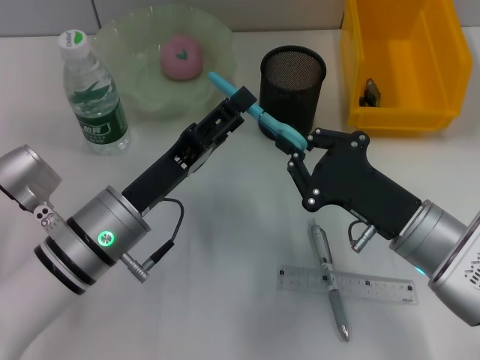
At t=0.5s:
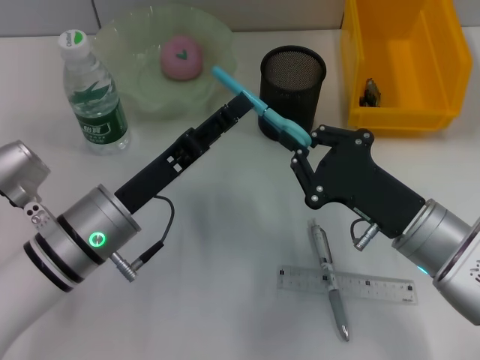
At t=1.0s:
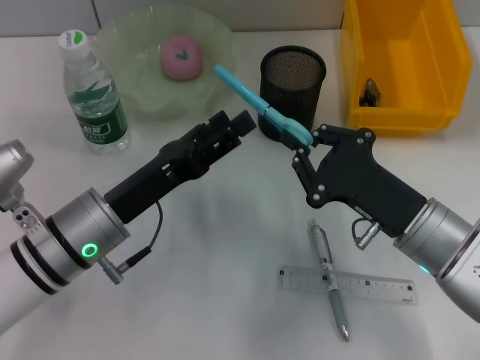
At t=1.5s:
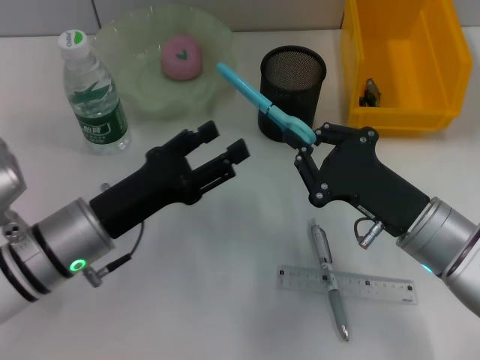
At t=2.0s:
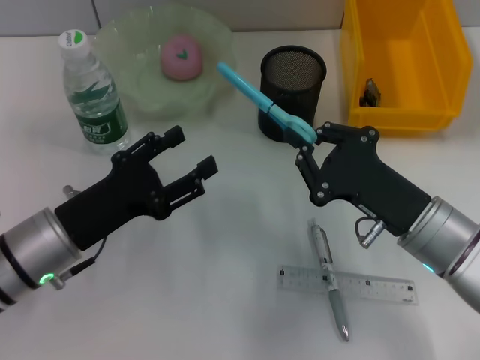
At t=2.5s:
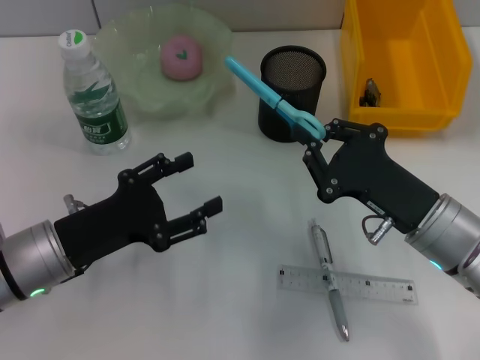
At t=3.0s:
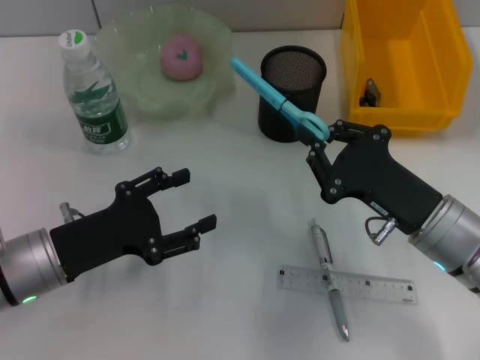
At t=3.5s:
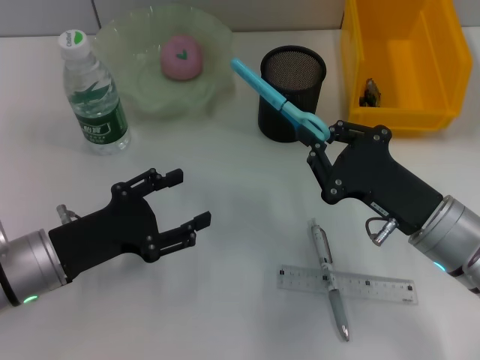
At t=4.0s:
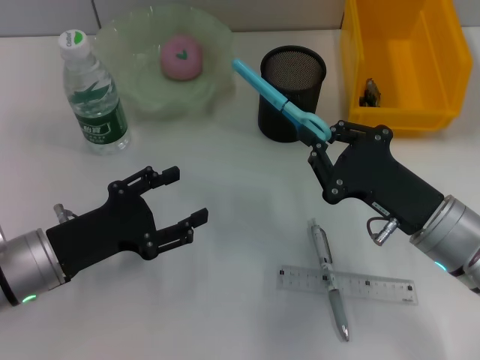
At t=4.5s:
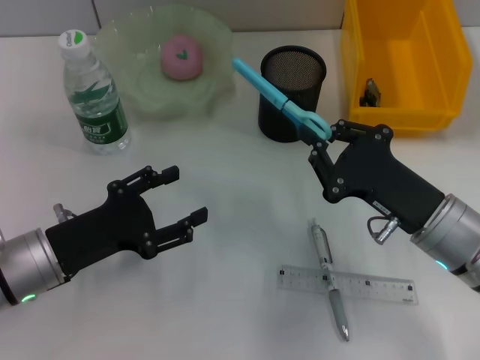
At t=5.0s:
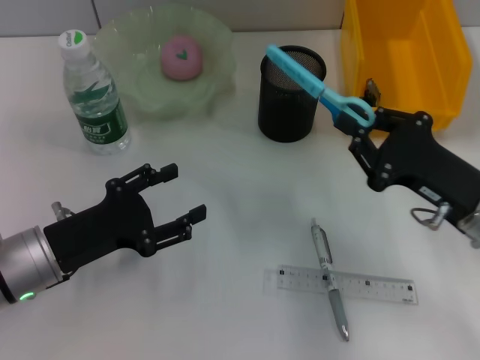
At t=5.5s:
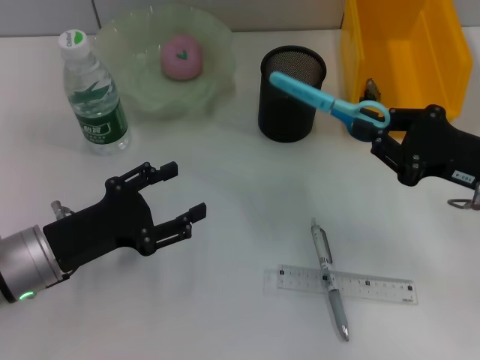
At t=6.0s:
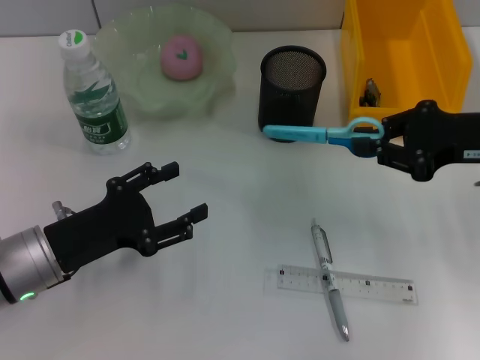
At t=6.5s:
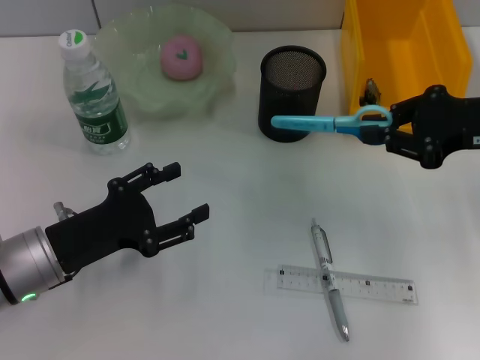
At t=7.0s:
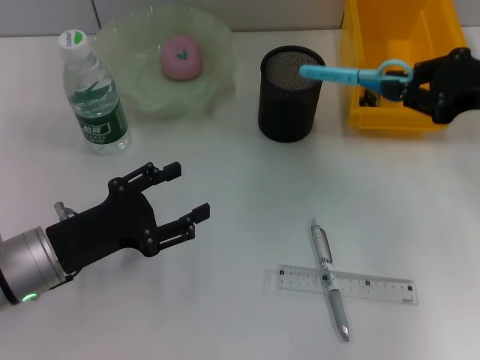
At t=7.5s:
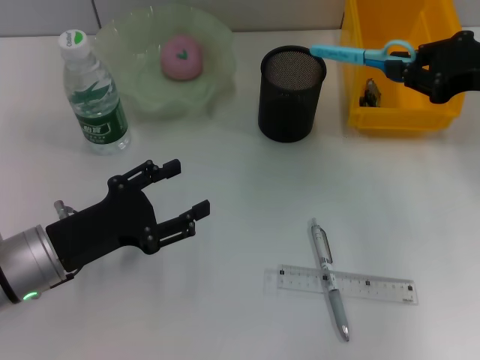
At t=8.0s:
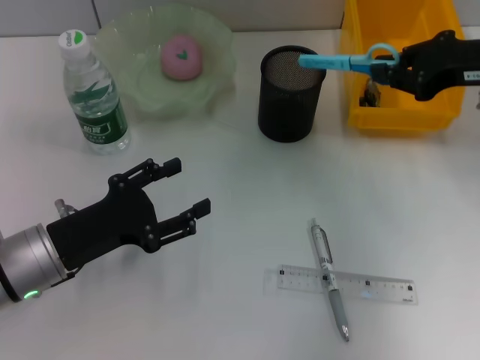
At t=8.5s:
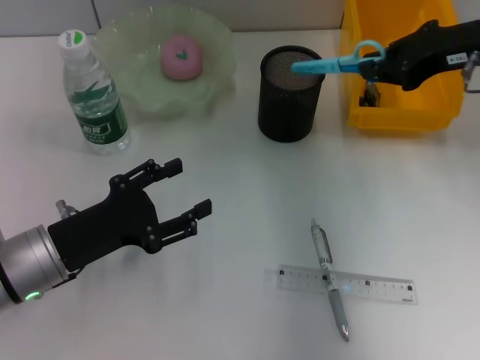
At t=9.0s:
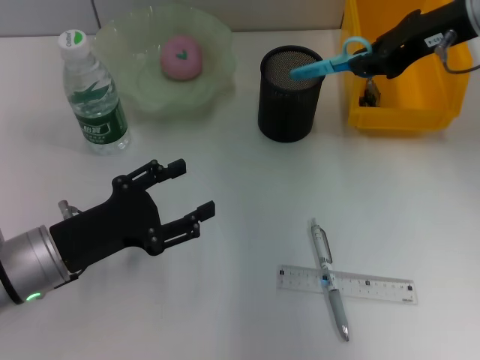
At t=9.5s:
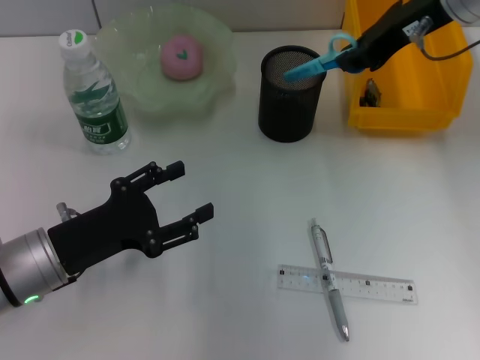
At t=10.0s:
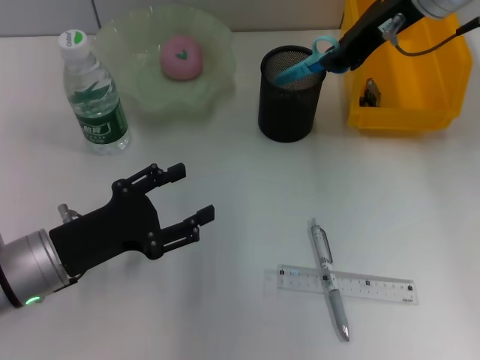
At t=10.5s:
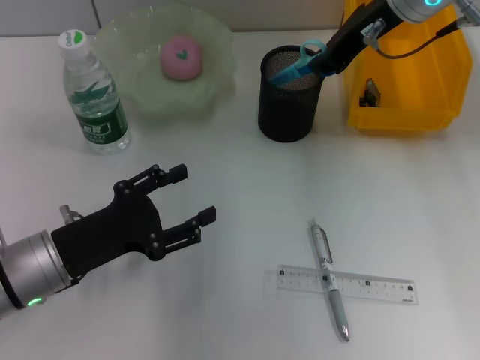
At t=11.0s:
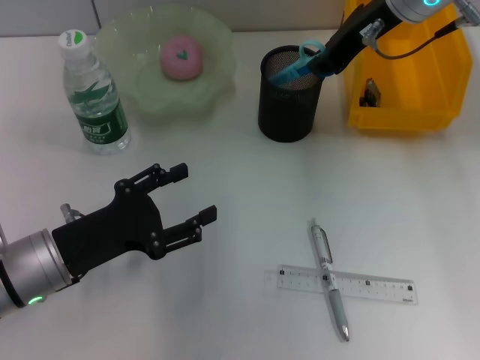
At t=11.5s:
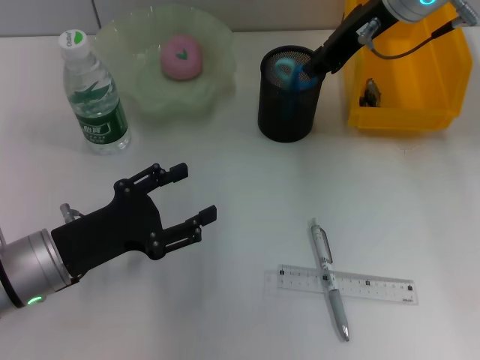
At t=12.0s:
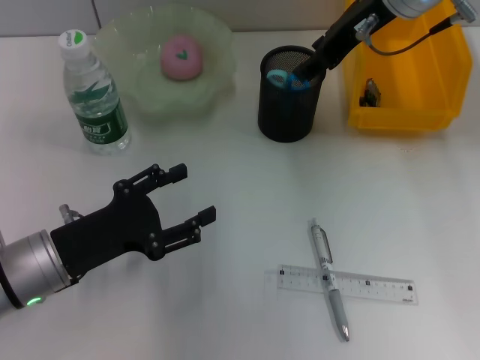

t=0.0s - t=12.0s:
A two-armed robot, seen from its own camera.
t=0.0s - t=2.0s: The left gripper shifts roughly 5 cm to the left.
t=2.0s - t=4.0s: The grippers move only a little.
t=4.0s - t=6.0s: The right gripper goes approximately 15 cm upward, to the right and forward.
t=6.0s - t=8.0s: The right gripper heads forward, covering about 5 cm.
t=8.0s - t=10.0s: The right gripper goes some 15 cm to the left, forward and upward.
t=10.0s - t=12.0s: The grippers move only a little.

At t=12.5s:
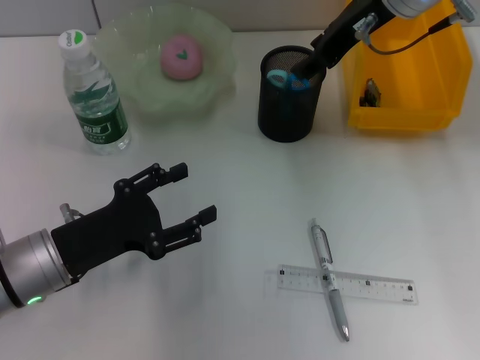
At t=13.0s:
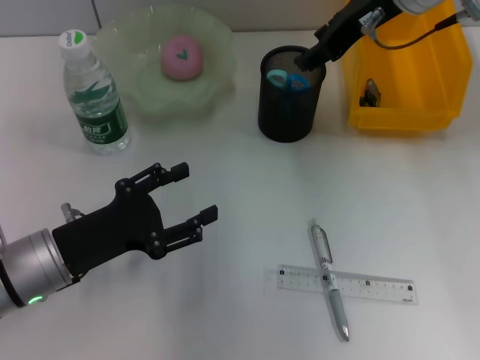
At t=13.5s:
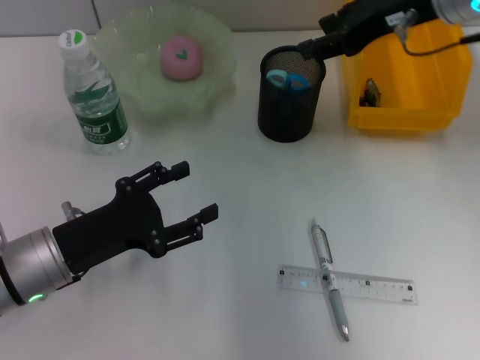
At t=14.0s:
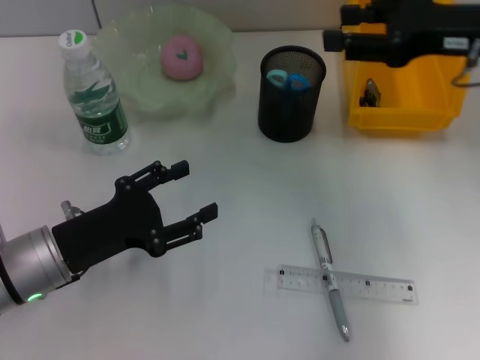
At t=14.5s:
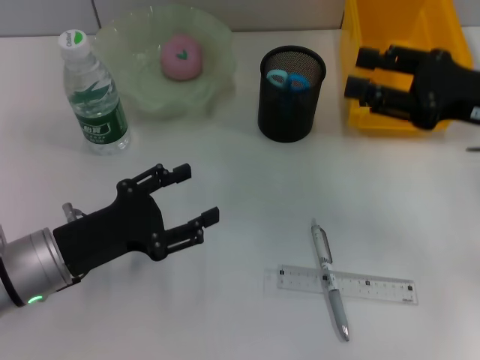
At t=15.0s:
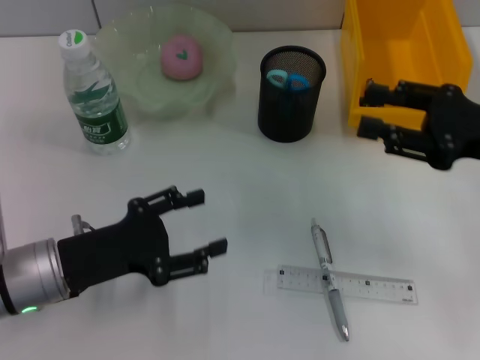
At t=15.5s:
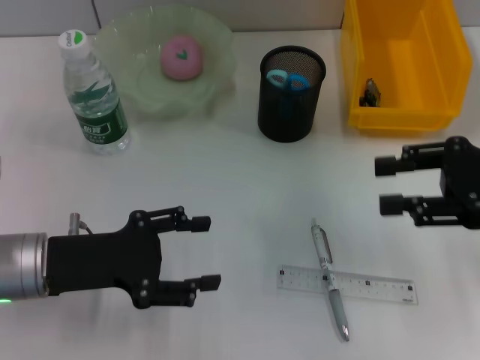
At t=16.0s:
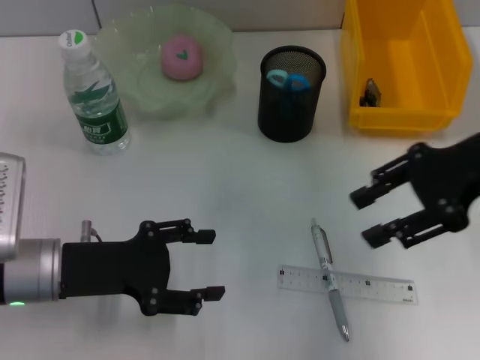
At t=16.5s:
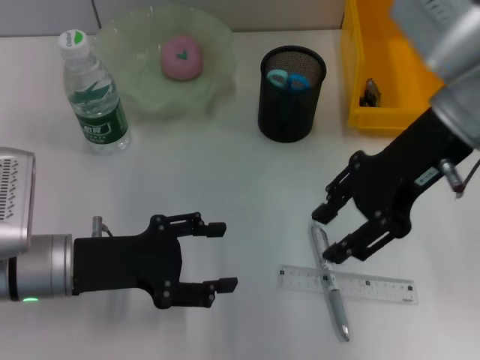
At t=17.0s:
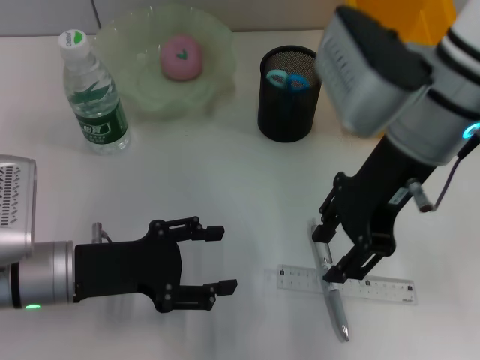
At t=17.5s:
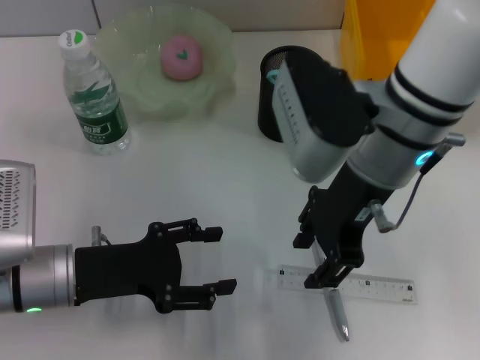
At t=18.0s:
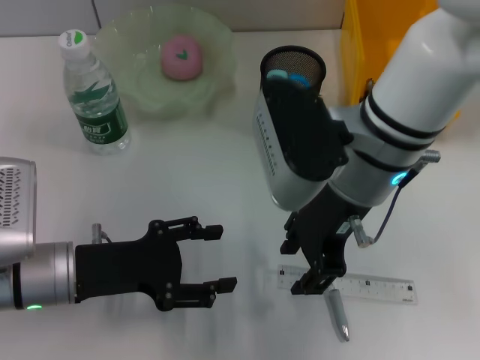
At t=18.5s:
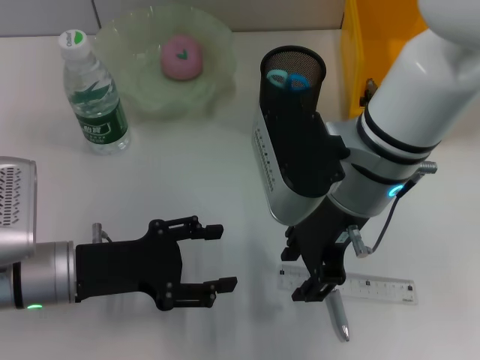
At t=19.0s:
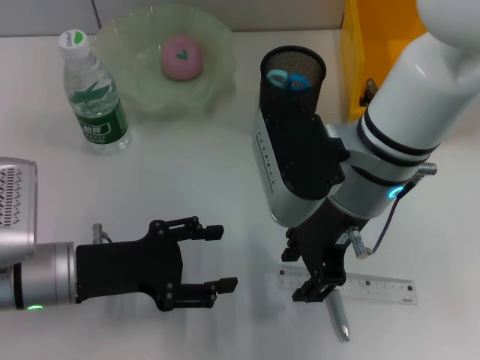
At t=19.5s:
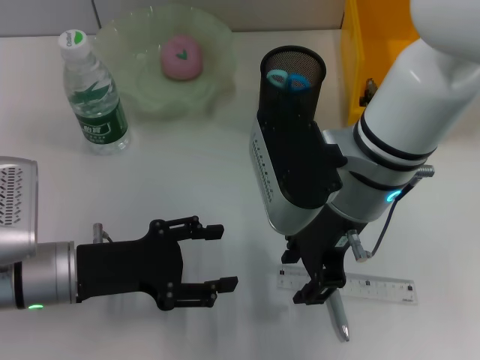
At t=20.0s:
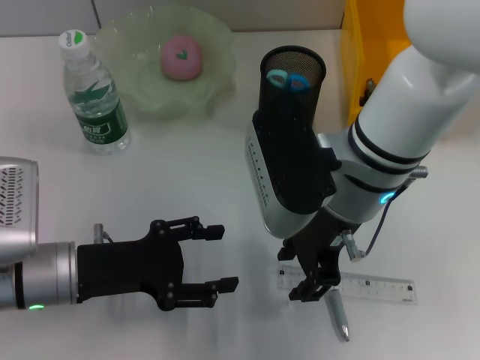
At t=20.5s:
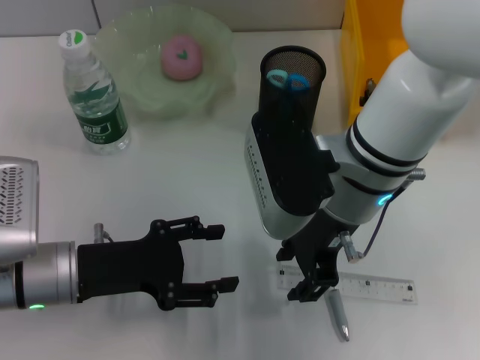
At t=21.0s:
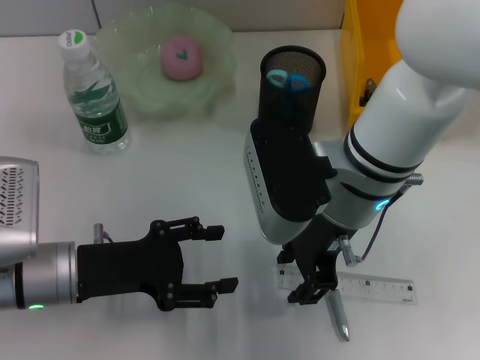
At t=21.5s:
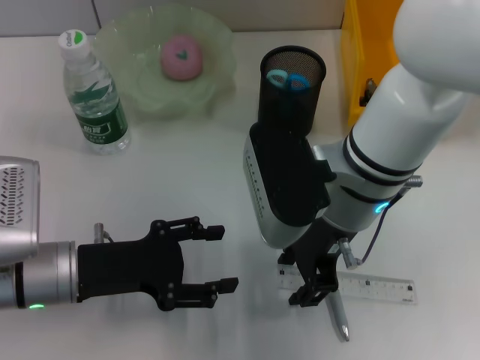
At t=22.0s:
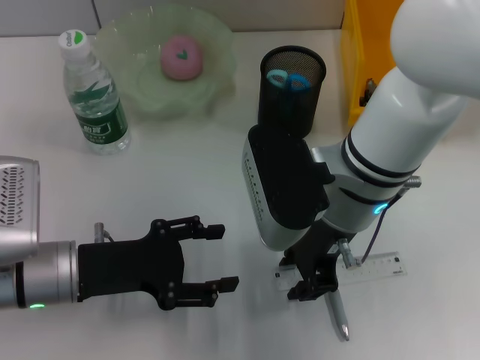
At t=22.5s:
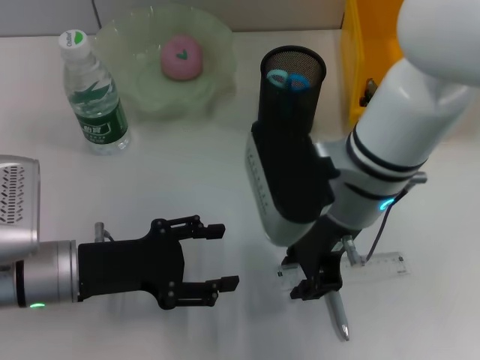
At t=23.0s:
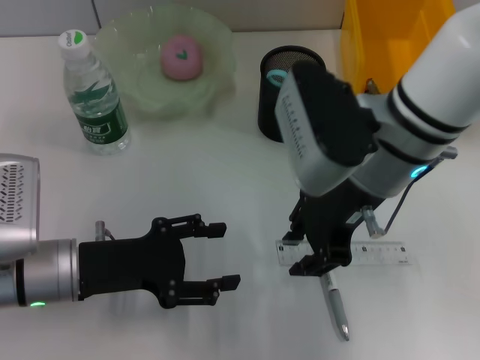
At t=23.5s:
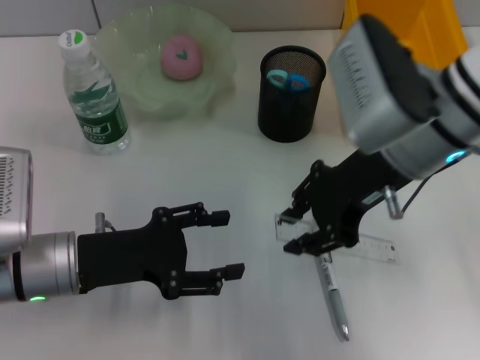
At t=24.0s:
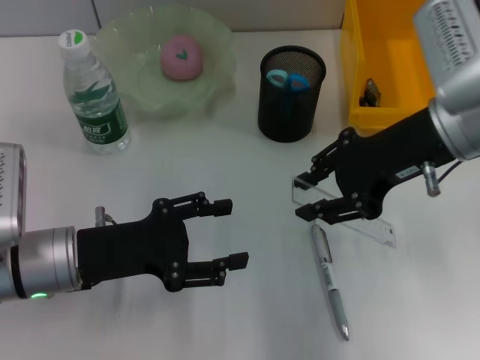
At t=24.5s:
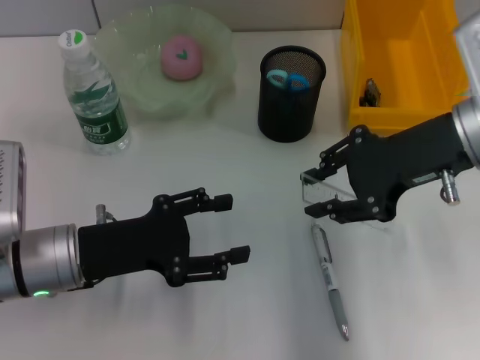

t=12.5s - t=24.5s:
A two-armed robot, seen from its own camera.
Step, t=12.5s - t=22.0s: Grab the ruler with the right hand.
t=12.5s - t=14.5s: The right gripper moves to the right, backward and downward, about 20 cm.
t=14.5s - t=16.5s: The right gripper travels to the left and upward by about 10 cm.
t=16.5s - t=18.5s: The right gripper moves to the left and downward, about 10 cm.
t=18.5s - t=20.5s: Neither gripper changes place.
t=20.5s - t=22.5s: Both grippers stay put.
t=22.5s - t=24.5s: The right gripper is displaced to the right by about 10 cm.

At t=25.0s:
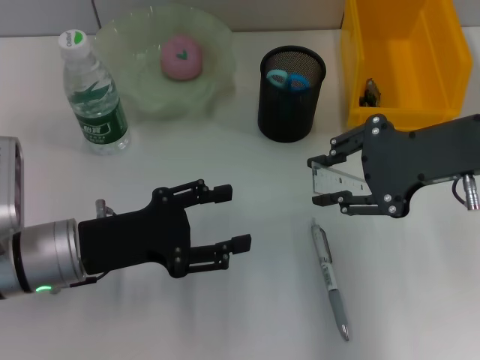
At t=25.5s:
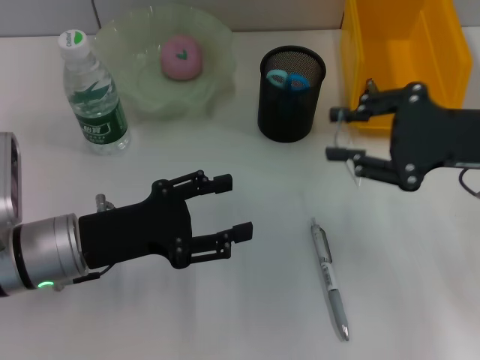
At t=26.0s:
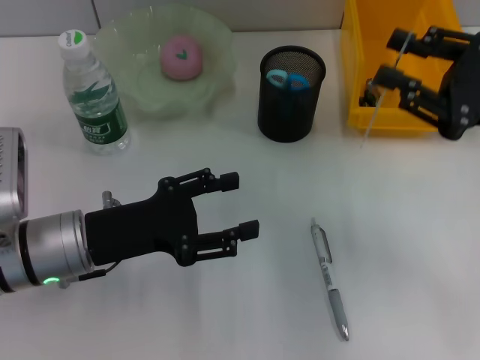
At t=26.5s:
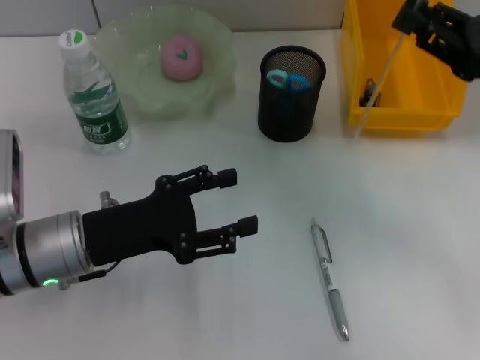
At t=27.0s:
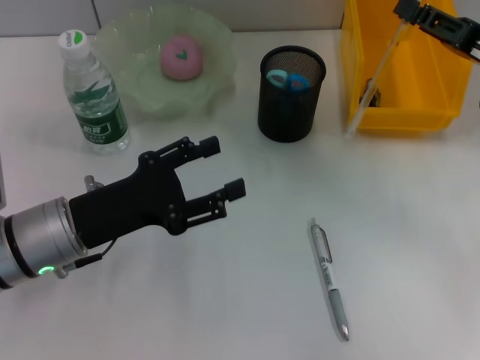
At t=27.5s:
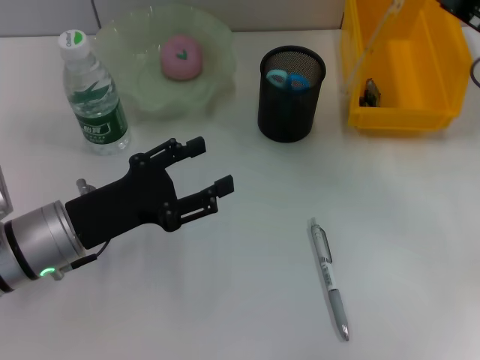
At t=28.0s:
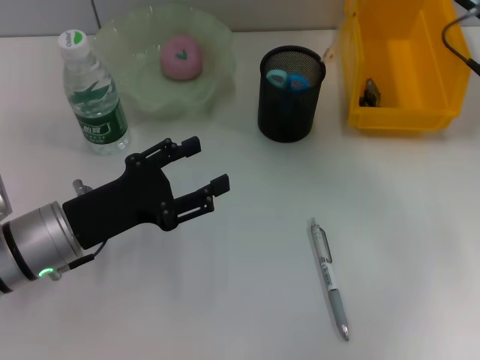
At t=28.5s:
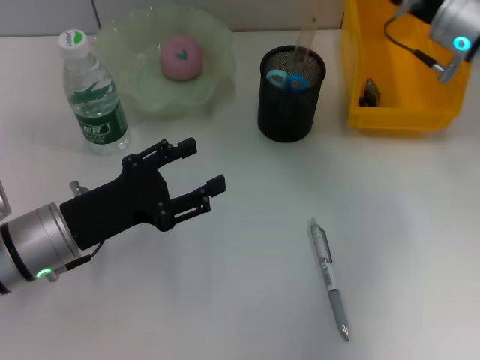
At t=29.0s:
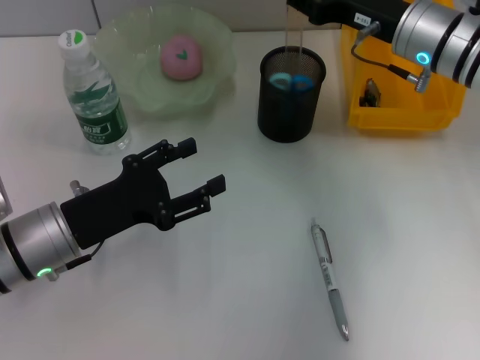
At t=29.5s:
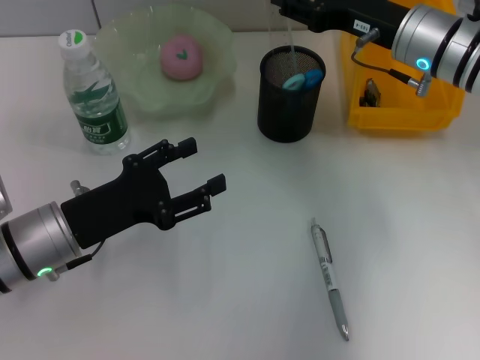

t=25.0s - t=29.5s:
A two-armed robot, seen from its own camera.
t=25.0s - t=27.0s: The right gripper travels to the right and downward by some 10 cm.
t=27.0s - t=29.5s: The right gripper heads to the left and forward, covering approximately 15 cm.
